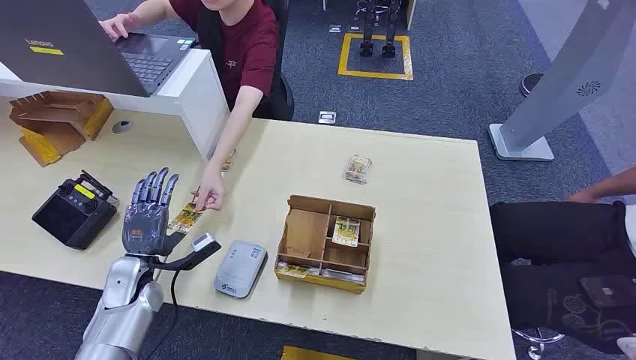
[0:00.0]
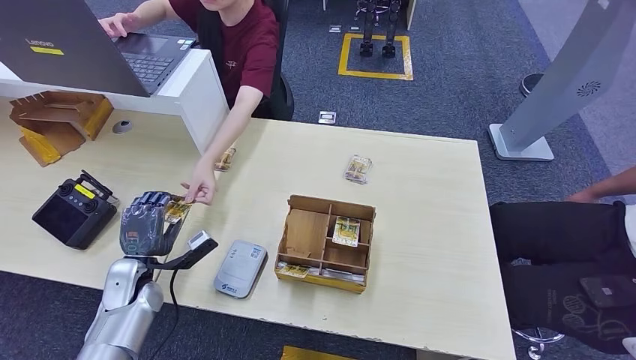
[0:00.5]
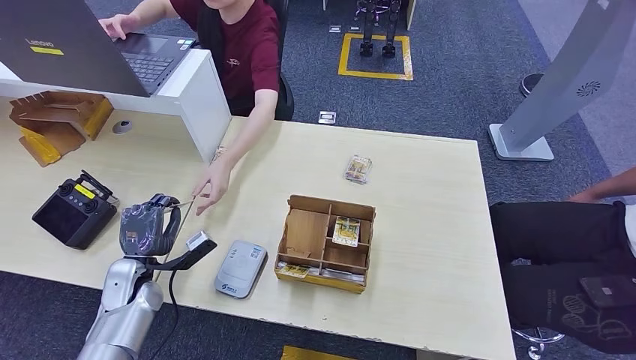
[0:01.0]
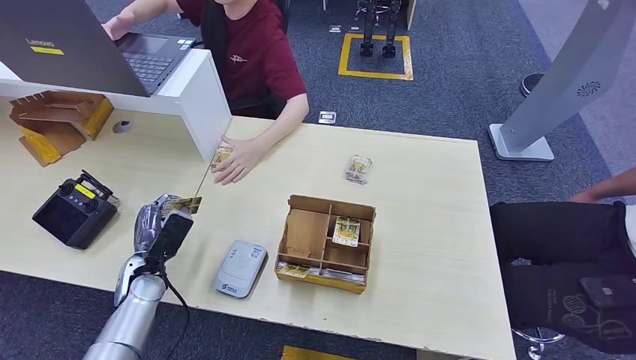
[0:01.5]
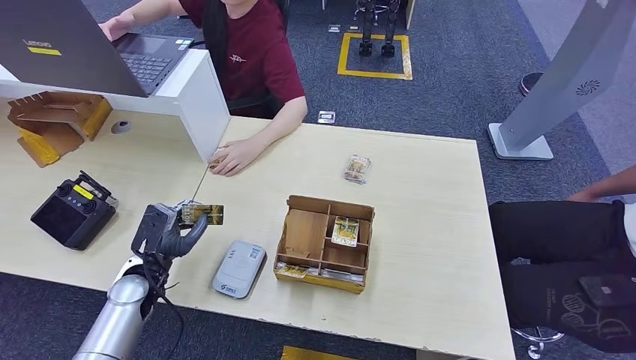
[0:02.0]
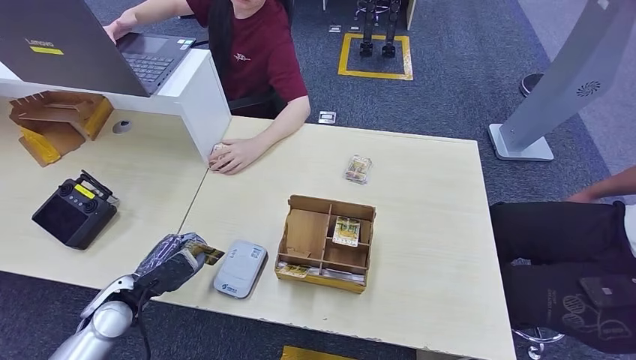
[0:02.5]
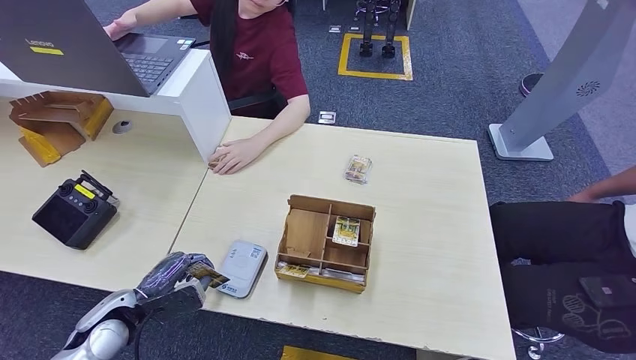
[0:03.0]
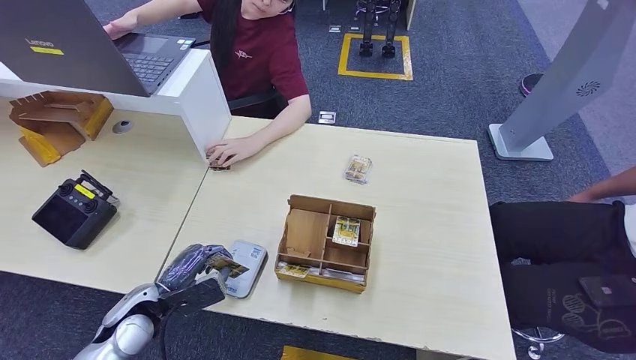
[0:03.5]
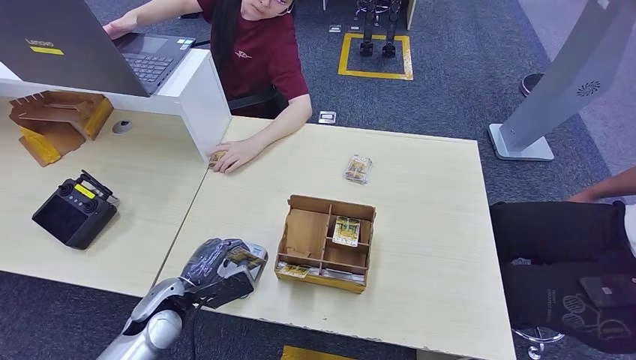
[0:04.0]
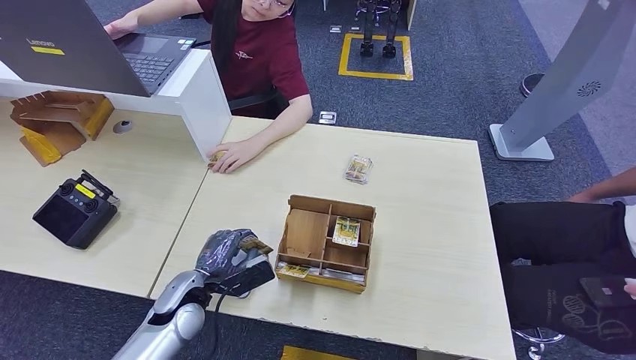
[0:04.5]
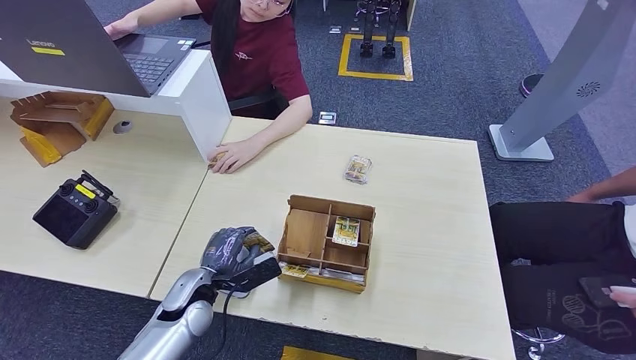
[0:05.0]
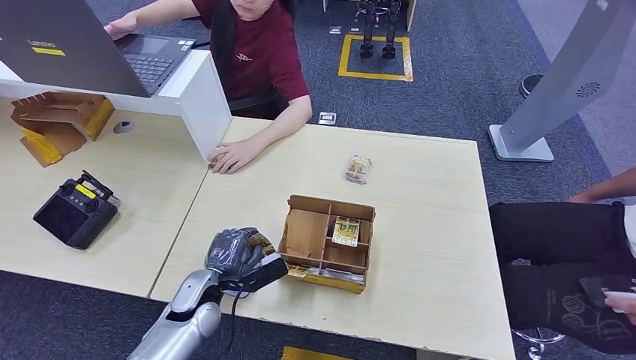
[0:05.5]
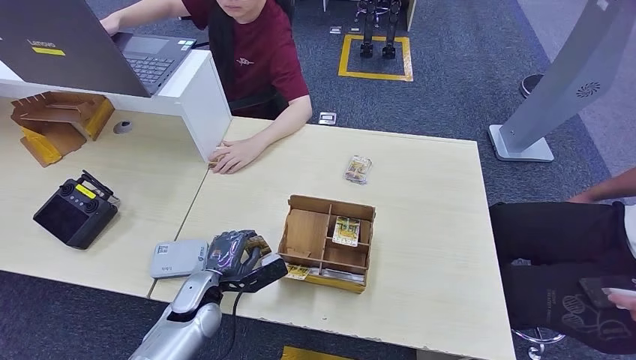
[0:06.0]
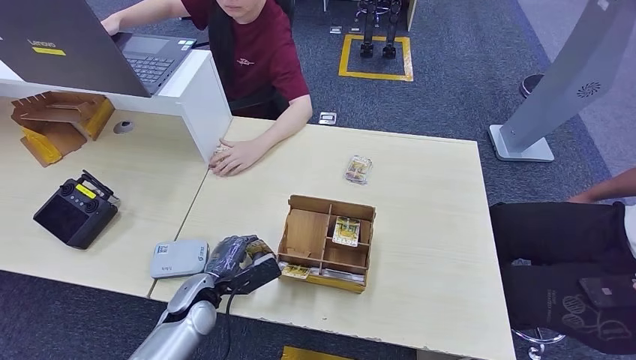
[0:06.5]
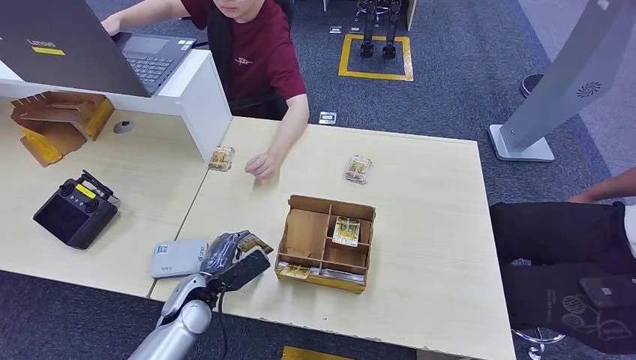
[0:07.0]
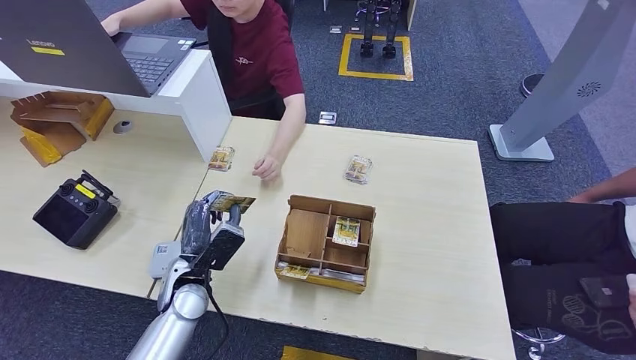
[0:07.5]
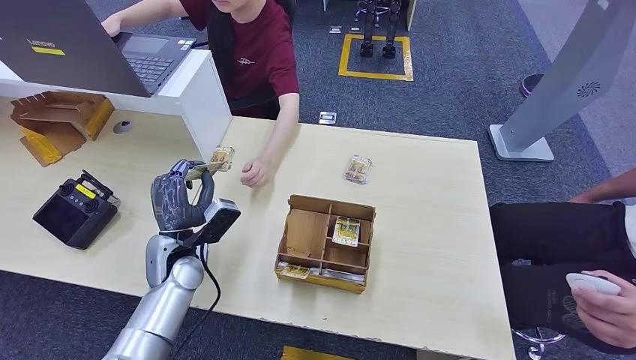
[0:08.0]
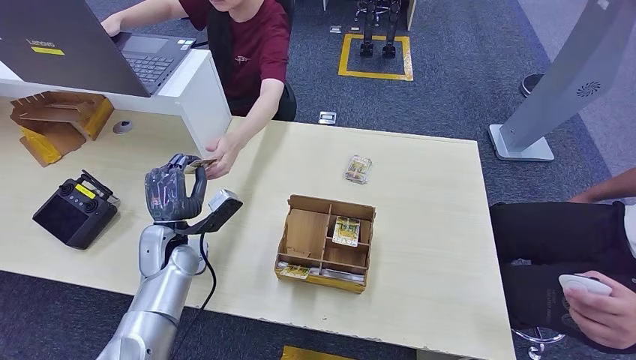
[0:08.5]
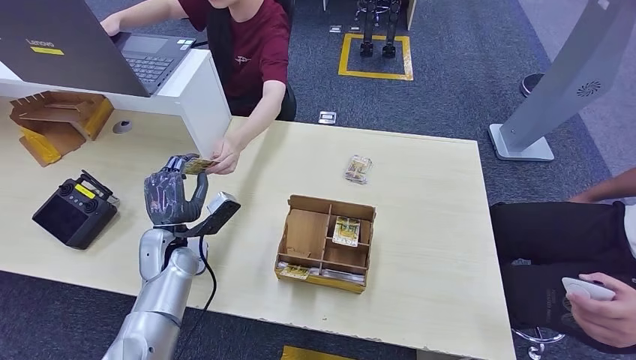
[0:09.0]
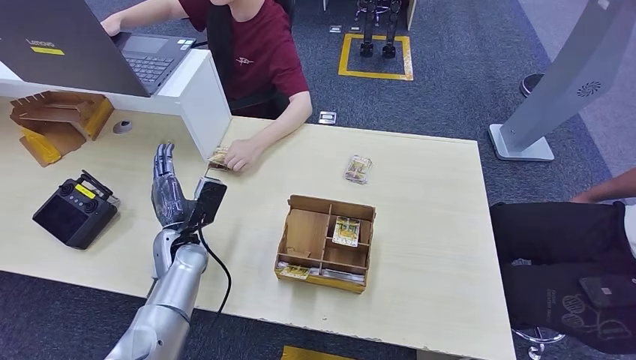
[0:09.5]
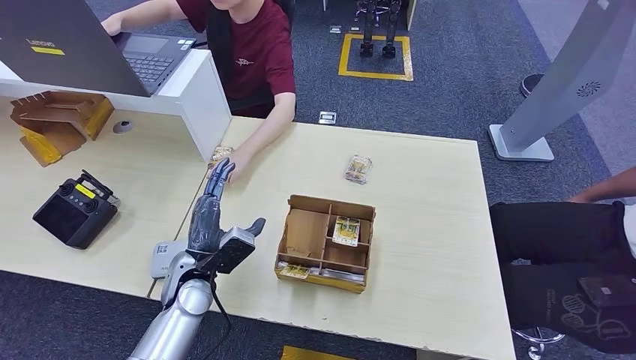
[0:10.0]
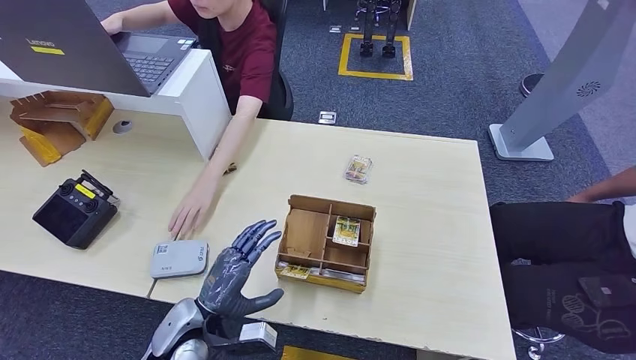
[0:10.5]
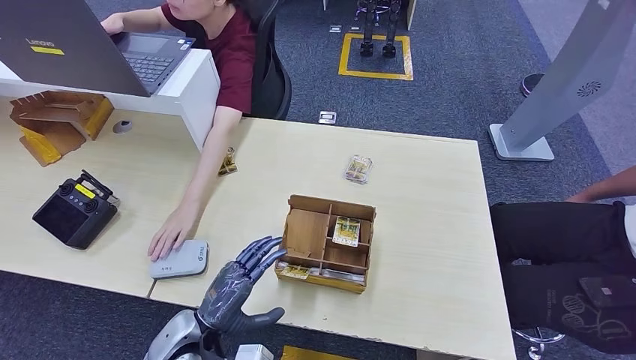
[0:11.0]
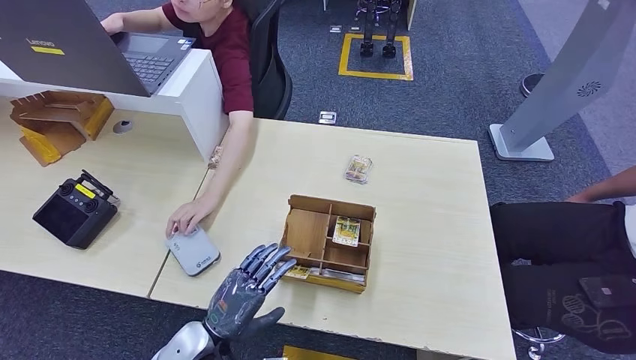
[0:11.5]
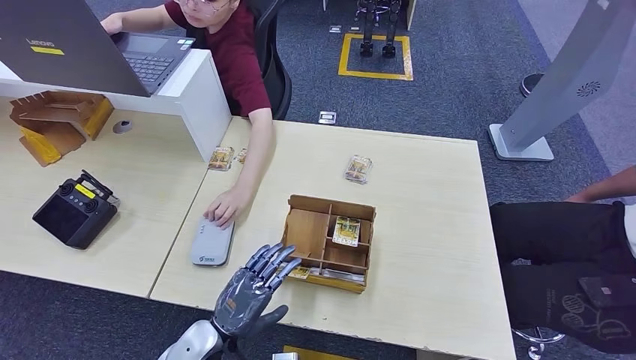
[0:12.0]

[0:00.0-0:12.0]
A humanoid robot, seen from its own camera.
Step, 0:00.0 to 0:00.5: Take the ID card from the person's hand.
Step, 0:01.5 to 0:07.0: Place the ID card on the card reader.
Step, 0:07.5 to 0:09.0: Hand the ID card to the person.
0:02.0 to 0:04.0: The left hand travels to the right and backward by about 10 cm.
0:04.0 to 0:06.0: The left hand ends up roughly 5 cm from where it was.
0:06.0 to 0:08.0: The left hand travels upward by approximately 10 cm.
0:08.0 to 0:10.0: The left hand moves approximately 5 cm.
0:10.0 to 0:12.0: The left hand shifts some 10 cm backward.

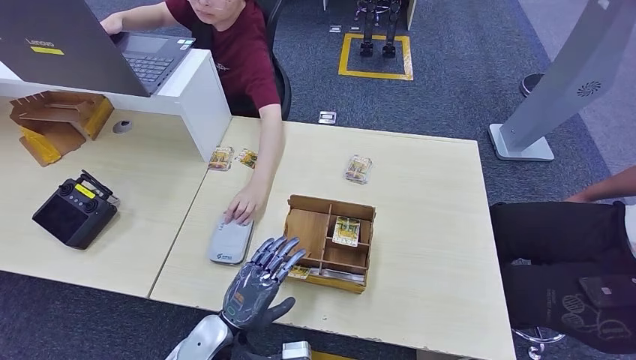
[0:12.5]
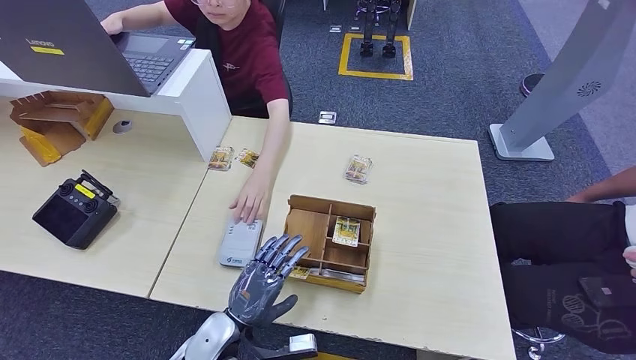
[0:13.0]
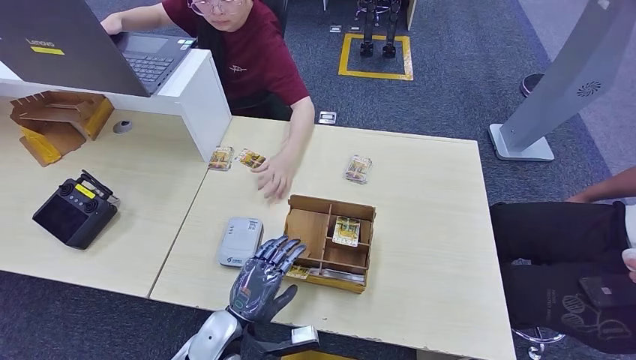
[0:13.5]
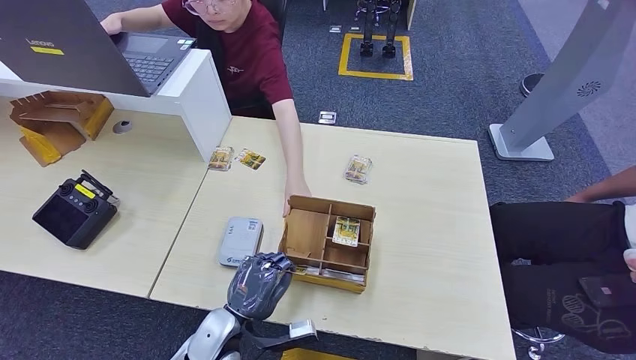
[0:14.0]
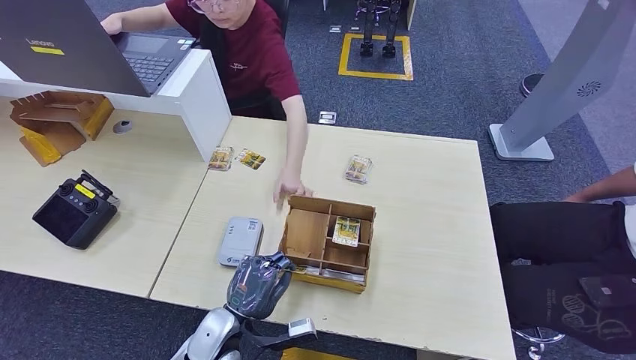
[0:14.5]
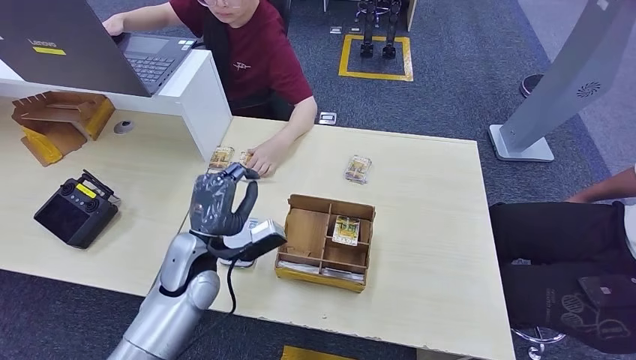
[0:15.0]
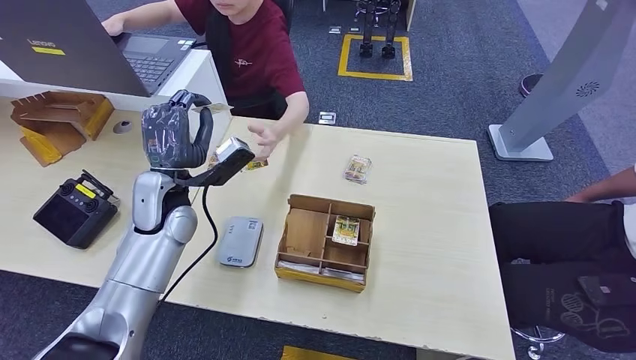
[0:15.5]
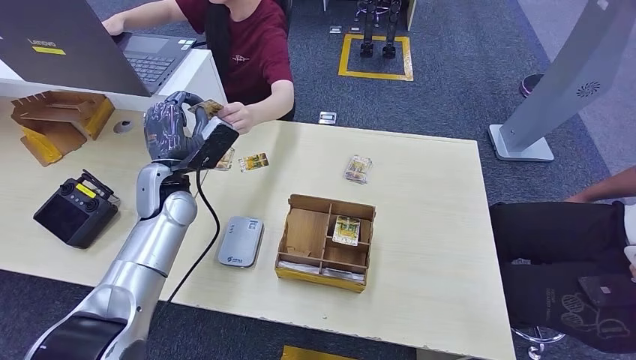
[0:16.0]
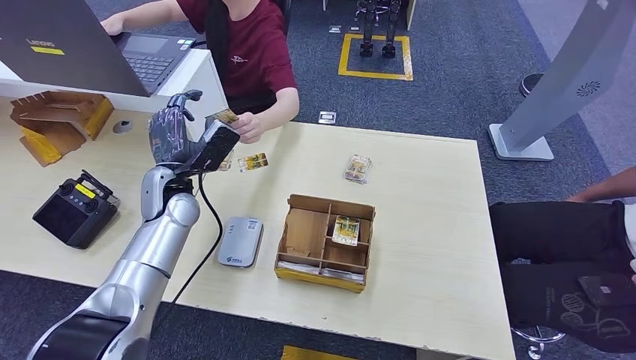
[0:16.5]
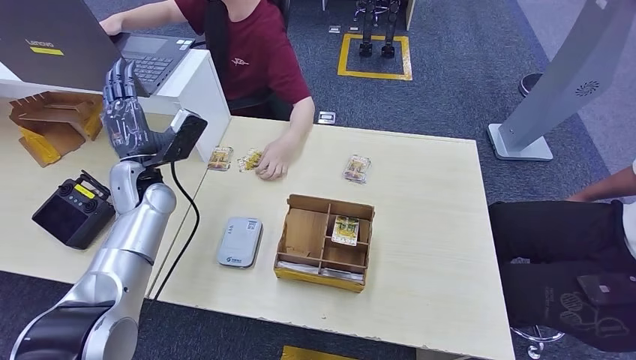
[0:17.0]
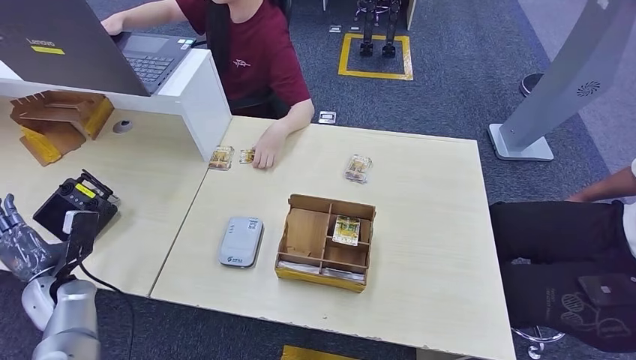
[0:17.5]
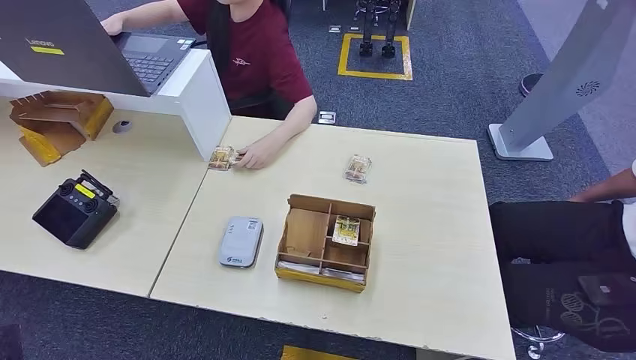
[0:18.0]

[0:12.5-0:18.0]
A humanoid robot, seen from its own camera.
Step, 0:12.5 to 0:15.0: Pick up the room key from the key card box.
Step, 0:15.5 to 0:17.5: Hand the room key to the person.
0:12.5 to 0:14.5: There are only small adjustments of the hands.
0:14.5 to 0:16.0: The left hand moves forward, upward and to the left, about 30 cm.
0:16.0 to 0:18.0: The left hand is displaced backward, to the left and downward by approximately 50 cm.
